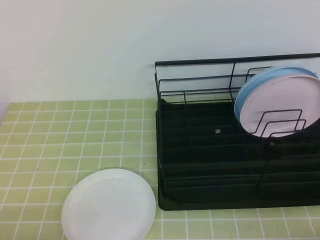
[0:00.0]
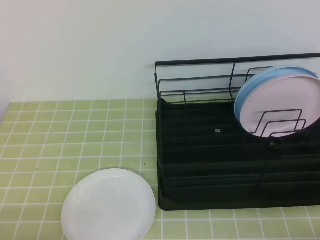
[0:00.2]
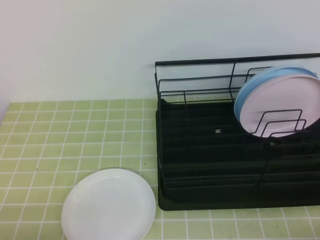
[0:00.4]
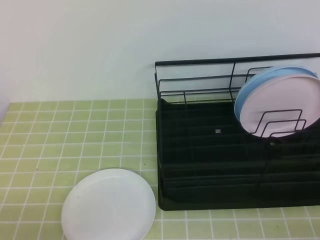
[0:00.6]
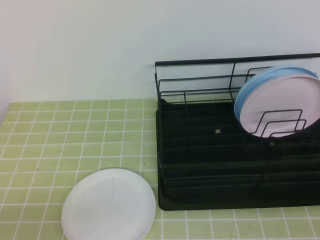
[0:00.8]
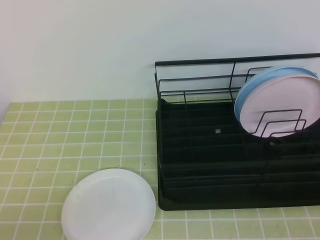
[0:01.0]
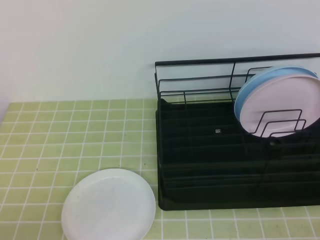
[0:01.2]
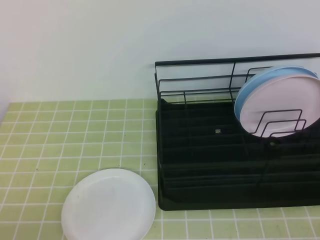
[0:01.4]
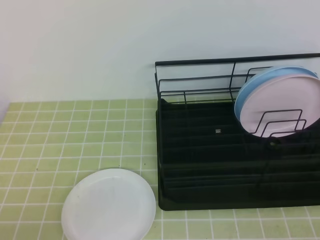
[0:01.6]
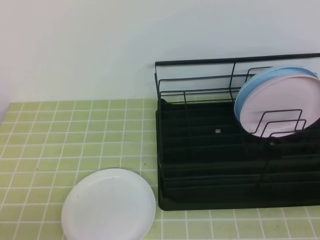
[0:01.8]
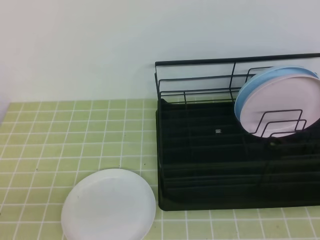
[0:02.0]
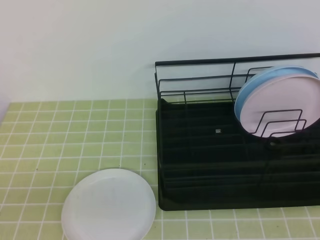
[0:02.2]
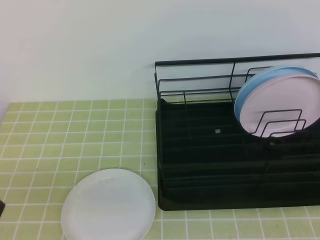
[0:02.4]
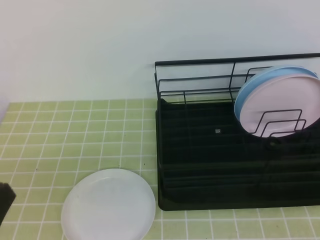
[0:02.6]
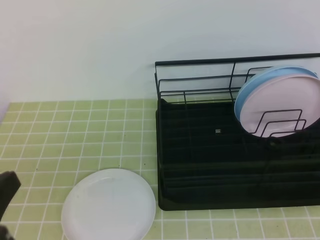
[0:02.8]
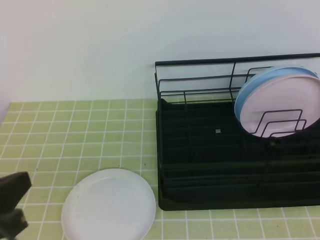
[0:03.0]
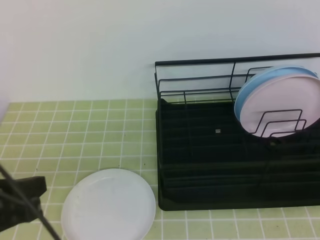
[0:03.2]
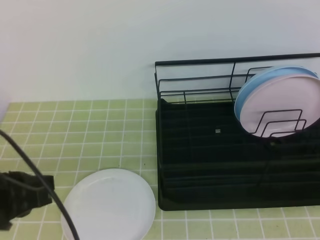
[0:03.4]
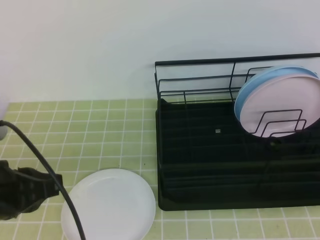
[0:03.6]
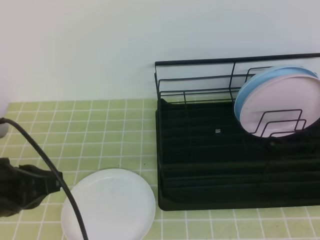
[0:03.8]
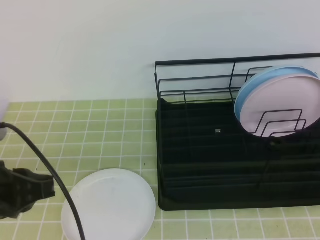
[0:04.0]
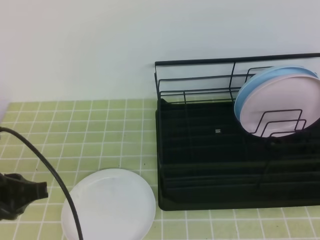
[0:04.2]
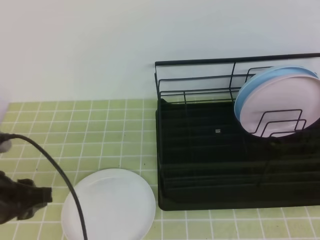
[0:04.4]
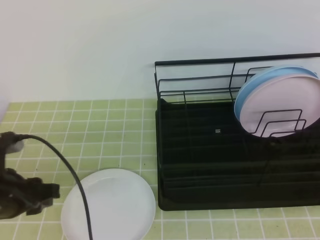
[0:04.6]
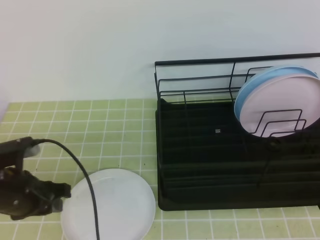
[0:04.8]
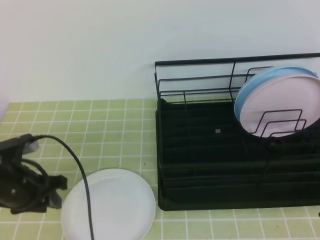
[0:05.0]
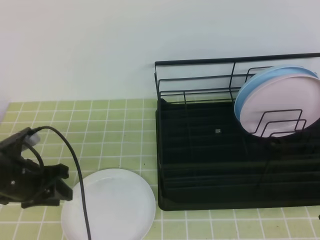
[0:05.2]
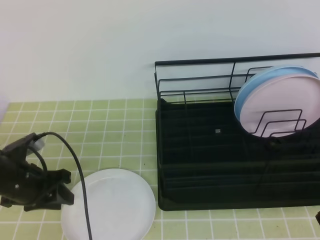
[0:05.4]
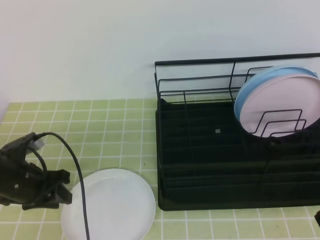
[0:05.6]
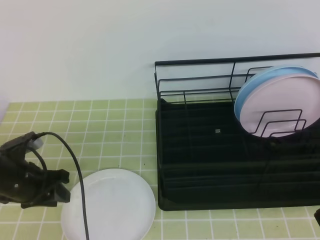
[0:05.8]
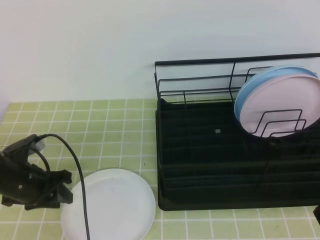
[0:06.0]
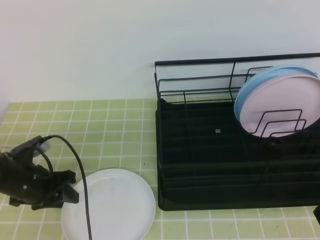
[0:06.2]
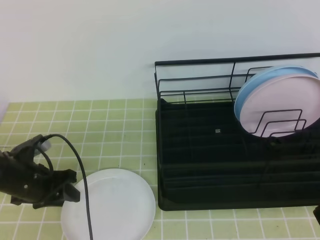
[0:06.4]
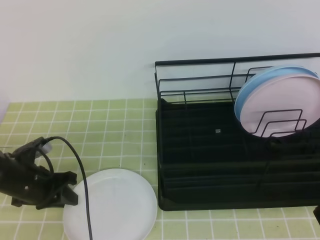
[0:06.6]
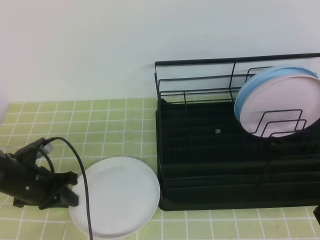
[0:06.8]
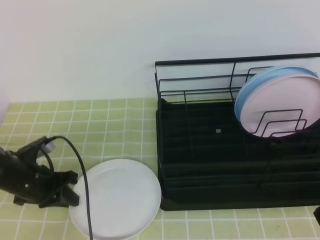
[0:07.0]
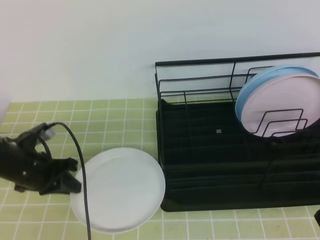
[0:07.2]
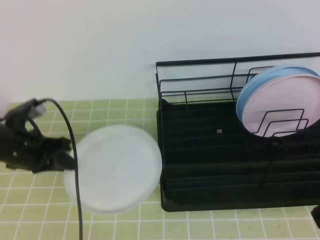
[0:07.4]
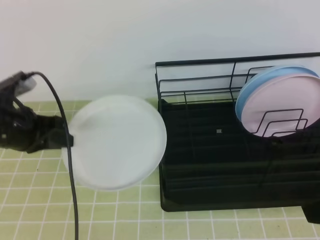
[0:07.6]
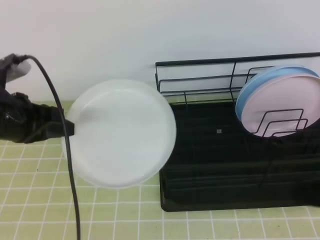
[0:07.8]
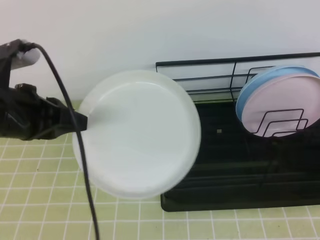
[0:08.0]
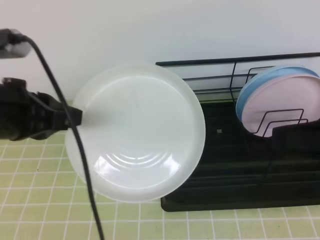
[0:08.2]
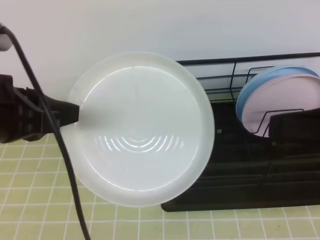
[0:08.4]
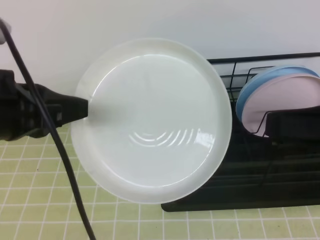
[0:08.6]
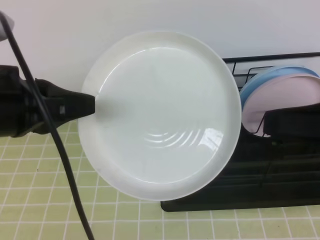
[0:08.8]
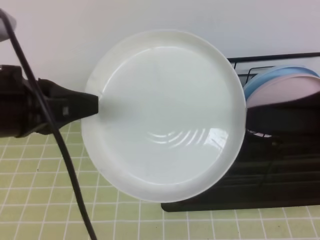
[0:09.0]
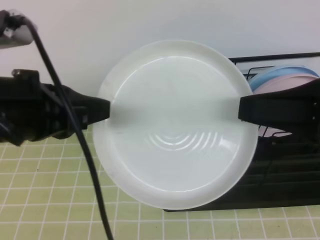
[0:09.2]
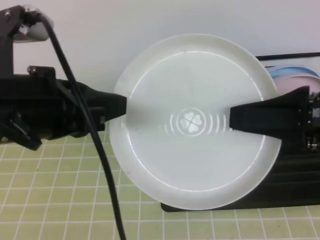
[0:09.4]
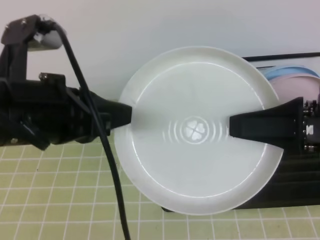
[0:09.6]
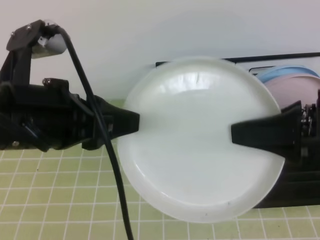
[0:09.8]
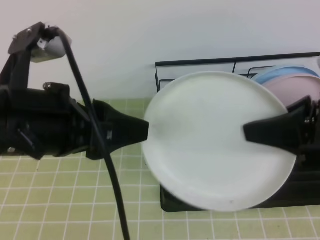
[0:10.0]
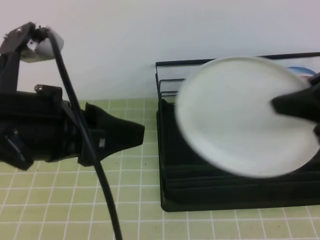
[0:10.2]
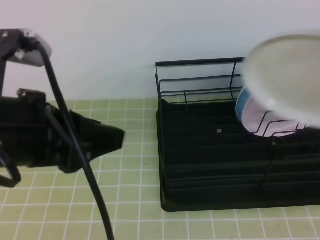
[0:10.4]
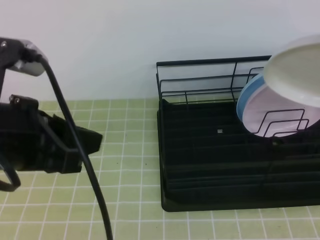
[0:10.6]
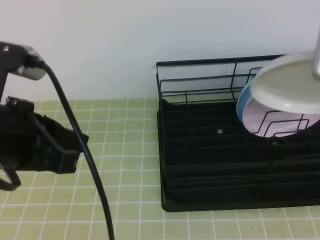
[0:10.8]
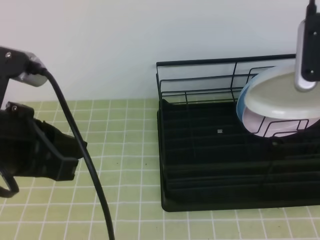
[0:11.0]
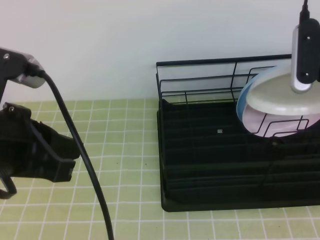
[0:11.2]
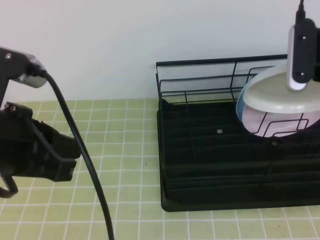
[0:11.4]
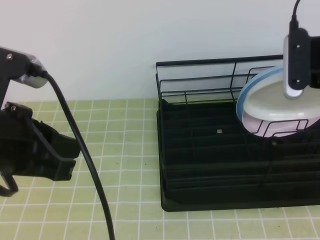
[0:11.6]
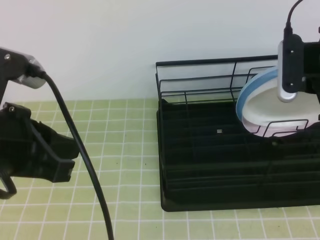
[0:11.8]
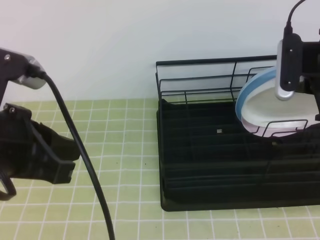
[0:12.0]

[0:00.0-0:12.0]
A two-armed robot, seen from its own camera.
Step, 0:00.0 to 0:05.6: Left grab the white plate.
Step, 0:08.0 to 0:10.2: Right place it at the front of the shelf.
0:01.6 to 0:03.0: The left gripper shifts some 10 cm upward.
0:03.0 to 0:04.4: The left gripper travels forward and downward by about 10 cm, and opens up.
0:04.4 to 0:06.0: The left gripper heads forward and downward, covering some 15 cm.
0:06.0 to 0:07.6: The left gripper heads upward, covering approximately 10 cm, and closes.
0:07.6 to 0:09.0: The left gripper shifts some 20 cm upward, backward and to the right. Meanwhile the right gripper moves about 5 cm, and opens up.
0:09.0 to 0:10.4: The left gripper opens up; the right gripper goes approximately 5 cm forward, and closes its fingers.
0:10.4 to 0:12.0: The right gripper heads forward and downward, covering some 15 cm. Meanwhile the left gripper closes its fingers.

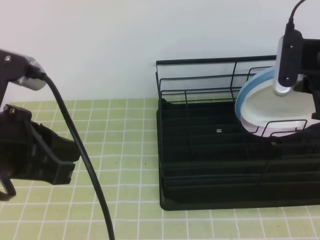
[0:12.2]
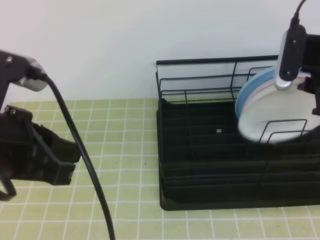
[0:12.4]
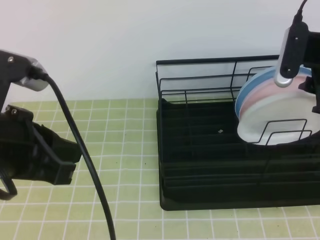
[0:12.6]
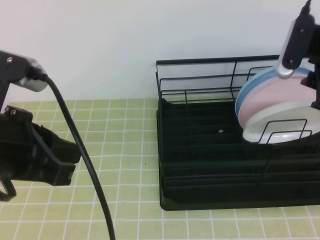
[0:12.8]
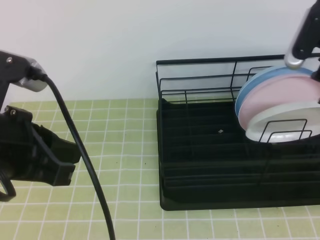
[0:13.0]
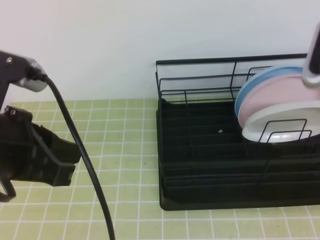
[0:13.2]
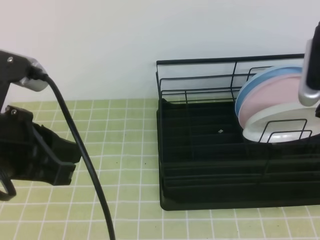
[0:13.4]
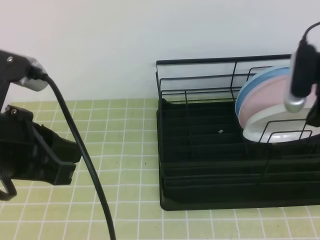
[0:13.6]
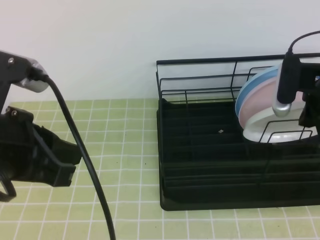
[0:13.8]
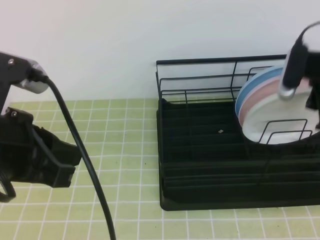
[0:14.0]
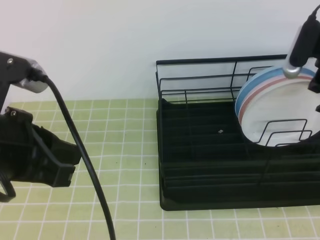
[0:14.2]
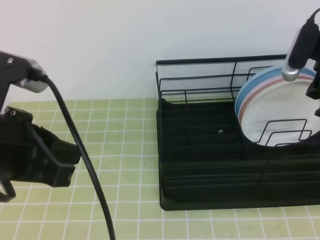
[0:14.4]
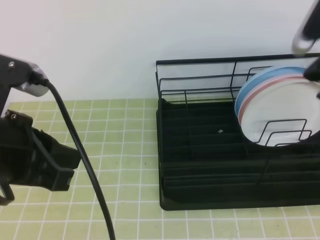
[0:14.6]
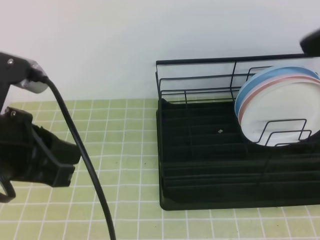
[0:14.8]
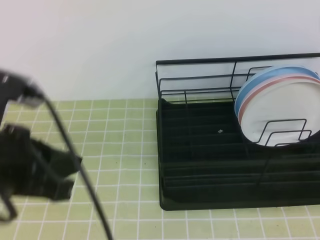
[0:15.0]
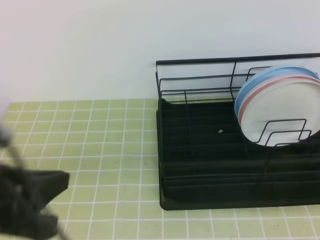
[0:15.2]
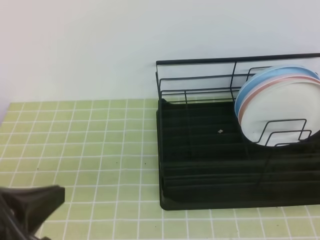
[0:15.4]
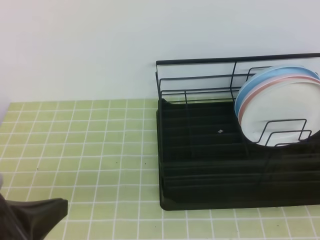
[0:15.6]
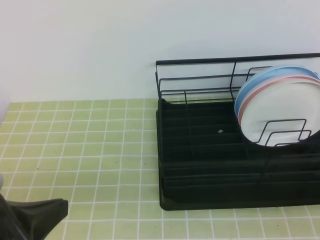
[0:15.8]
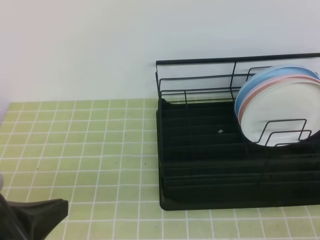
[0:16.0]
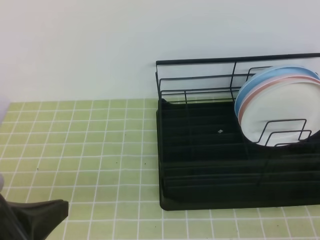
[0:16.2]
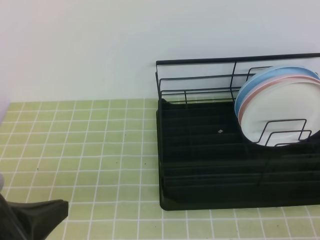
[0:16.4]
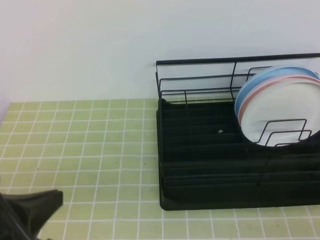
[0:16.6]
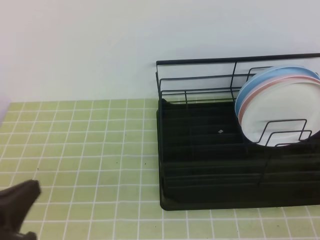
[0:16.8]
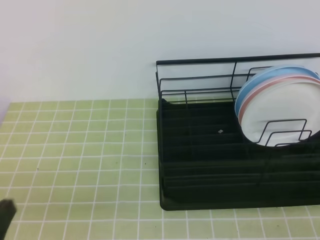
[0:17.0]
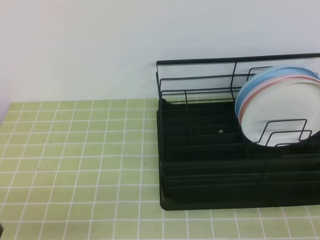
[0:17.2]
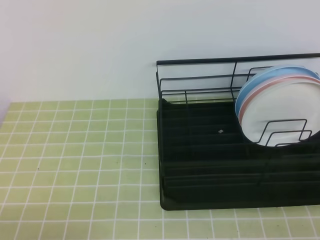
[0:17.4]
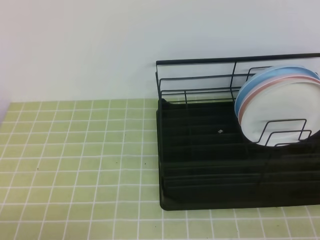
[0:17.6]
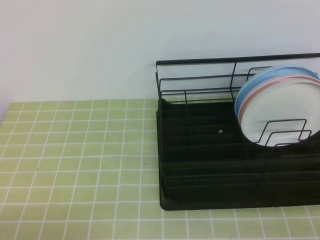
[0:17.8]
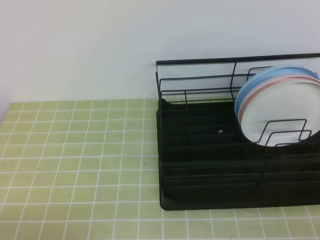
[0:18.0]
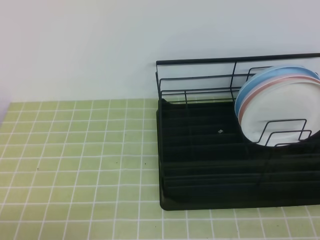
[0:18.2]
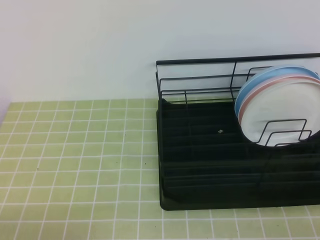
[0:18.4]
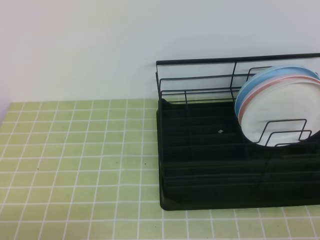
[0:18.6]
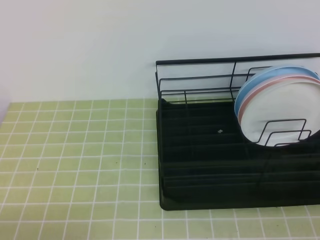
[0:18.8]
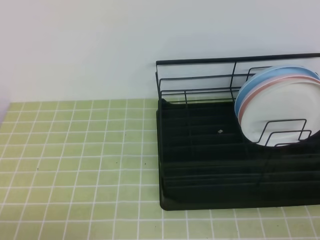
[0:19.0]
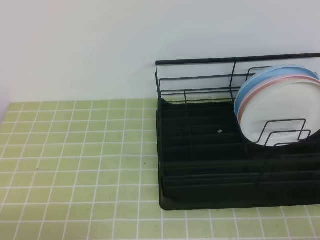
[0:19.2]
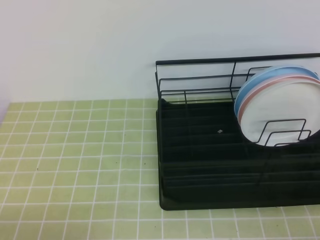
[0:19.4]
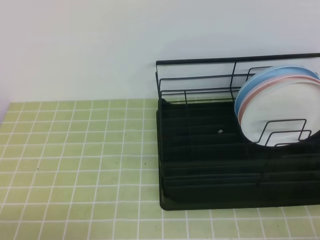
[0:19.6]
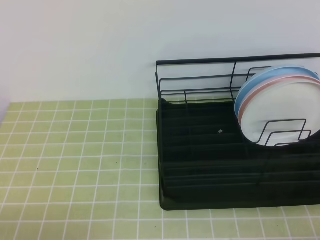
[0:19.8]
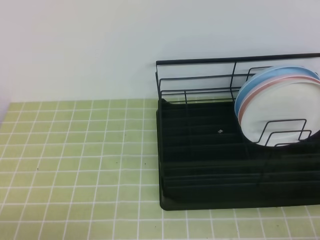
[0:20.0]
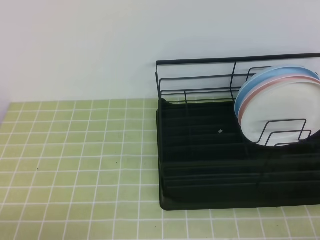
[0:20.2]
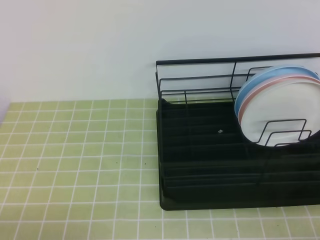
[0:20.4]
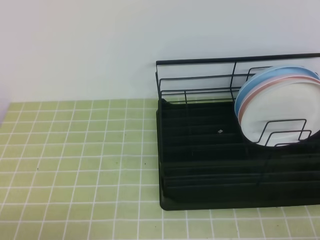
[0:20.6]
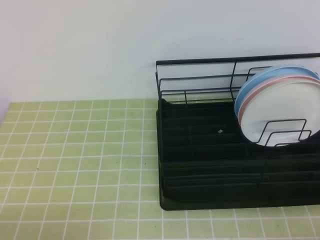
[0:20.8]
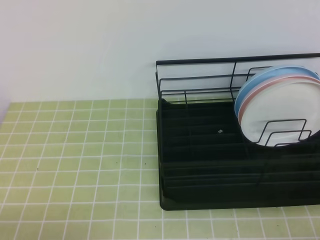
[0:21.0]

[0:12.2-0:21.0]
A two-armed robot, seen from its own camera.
0:12.2 to 0:13.6: The right gripper closes its fingers.
0:13.6 to 0:15.2: The right gripper is displaced backward and upward by about 20 cm. The left gripper changes place by approximately 5 cm.
0:15.2 to 0:16.6: The left gripper moves about 5 cm, while the right gripper shifts some 20 cm downward and backward.
0:16.6 to 0:18.0: The left gripper heads downward, to the left and backward, covering some 15 cm.
0:19.6 to 0:21.0: The two grippers keep their place.
